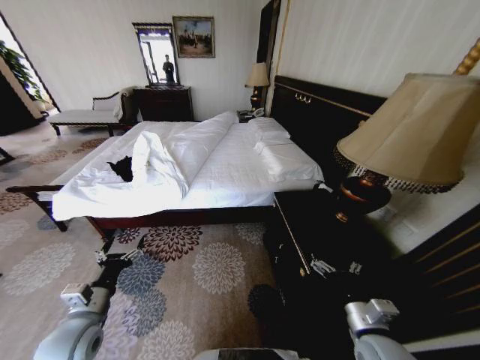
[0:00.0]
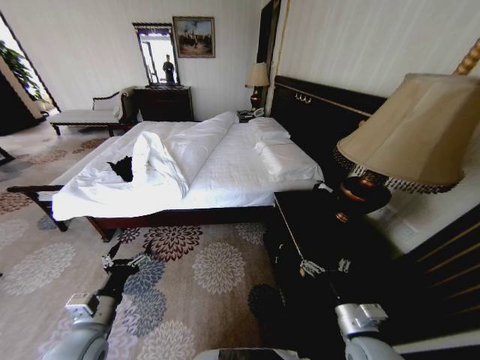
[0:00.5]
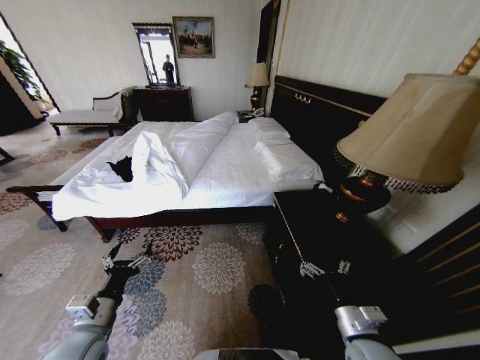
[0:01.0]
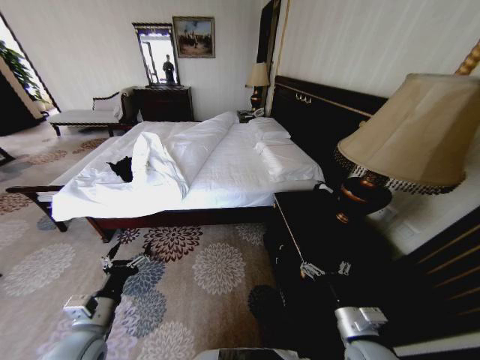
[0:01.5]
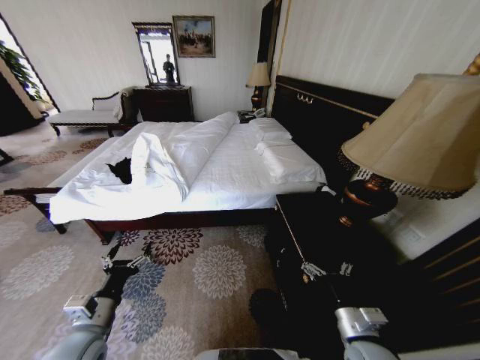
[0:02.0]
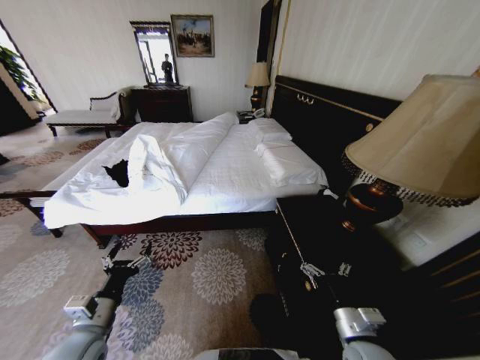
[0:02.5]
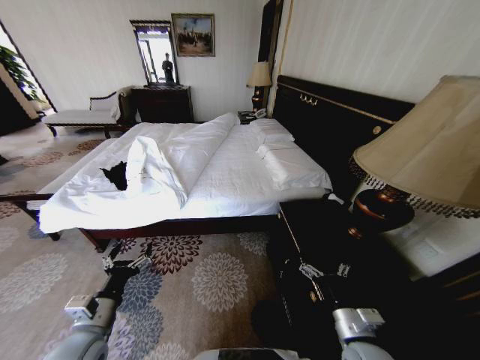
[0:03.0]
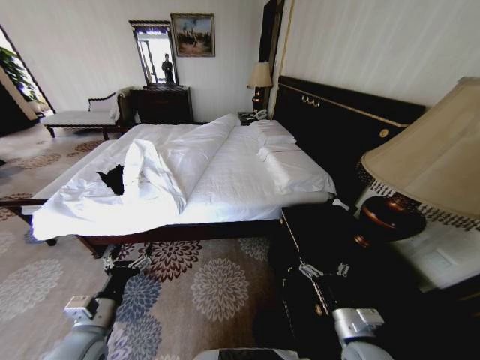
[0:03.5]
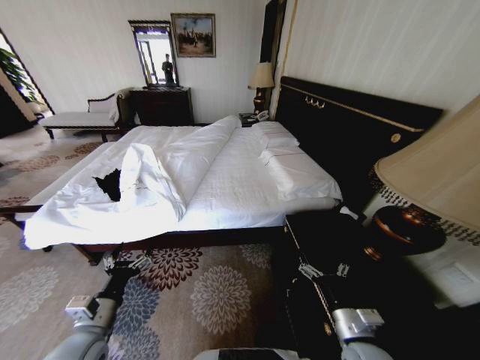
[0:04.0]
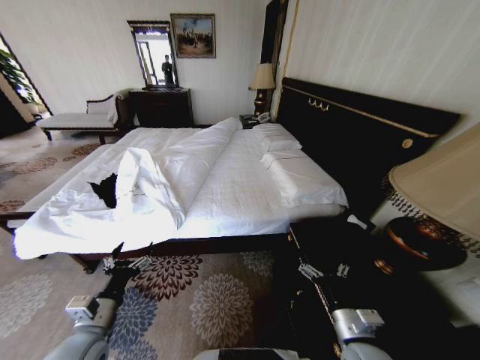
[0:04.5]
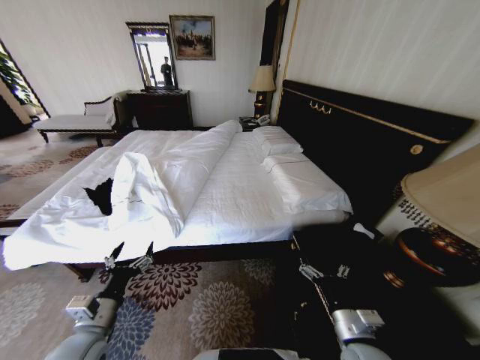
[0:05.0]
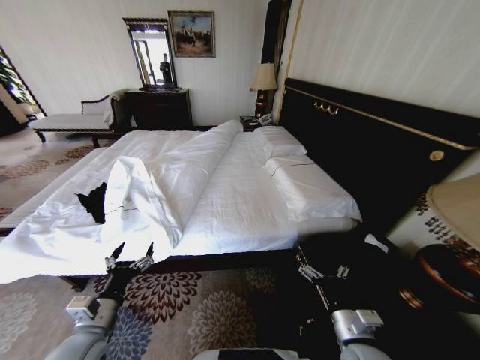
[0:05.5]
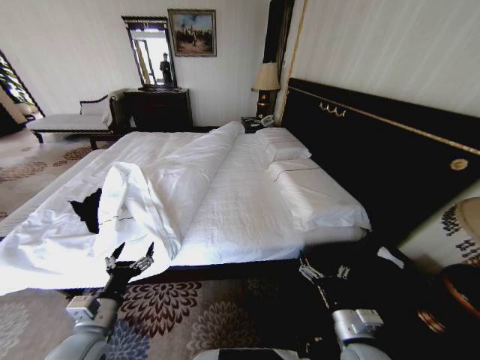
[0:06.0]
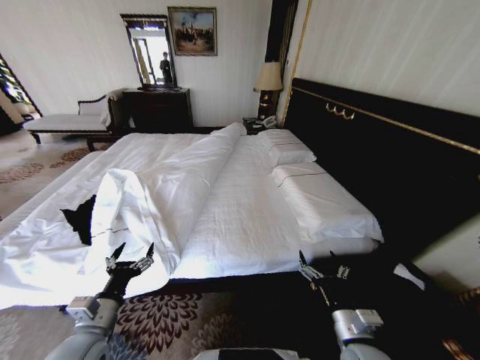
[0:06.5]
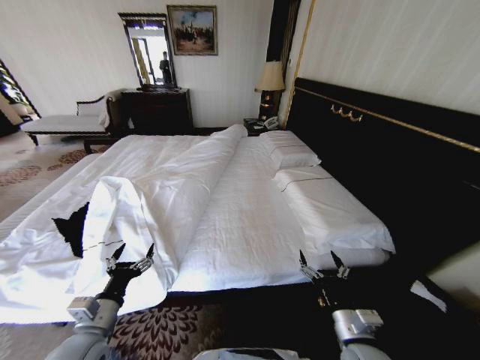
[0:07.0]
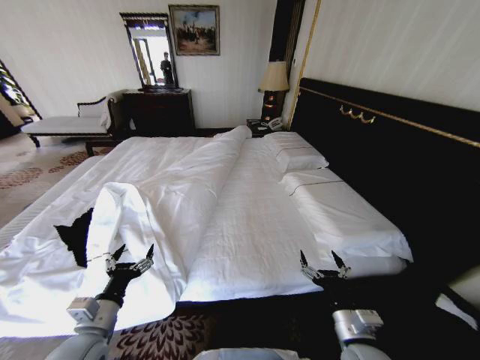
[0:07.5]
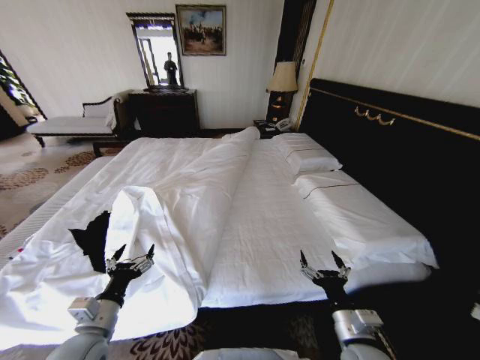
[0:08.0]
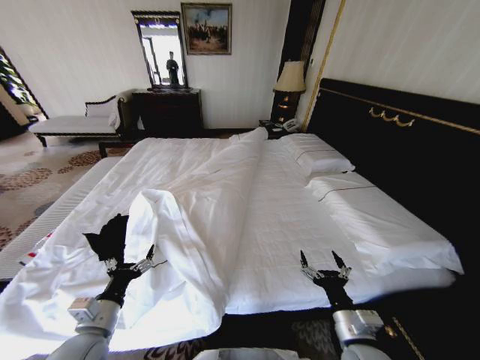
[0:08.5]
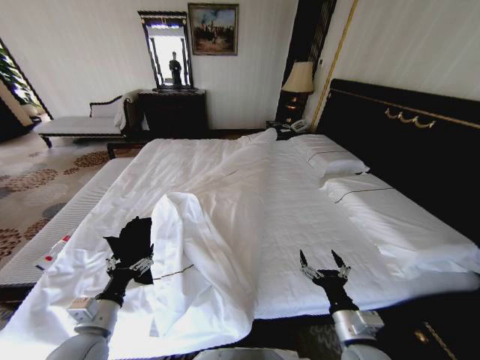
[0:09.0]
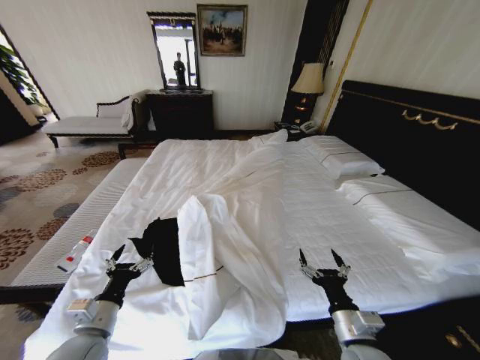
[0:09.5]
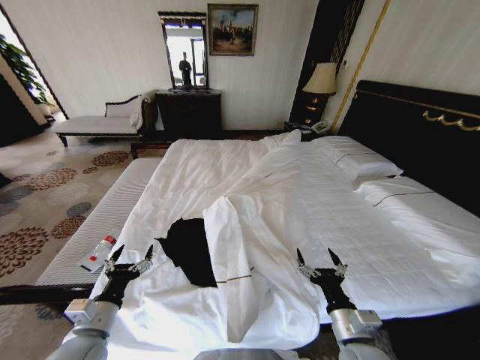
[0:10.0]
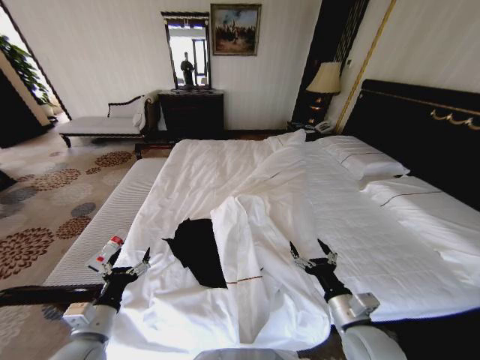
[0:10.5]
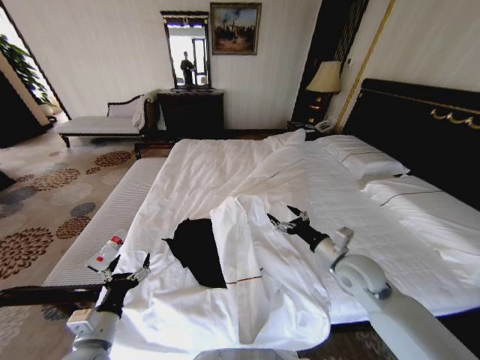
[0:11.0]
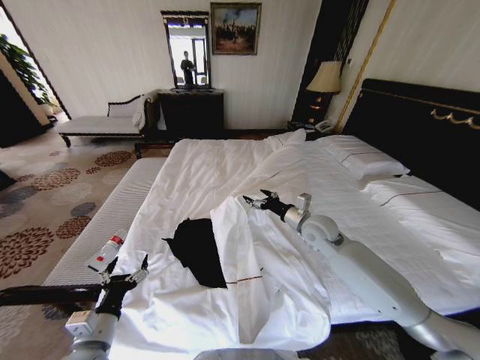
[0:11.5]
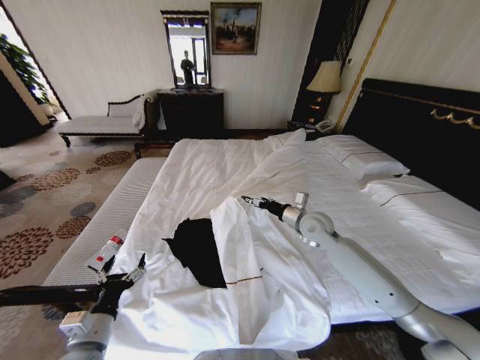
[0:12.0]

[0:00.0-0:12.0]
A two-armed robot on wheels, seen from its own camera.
Task of the whole recording: Fold the clothes on the bed.
0:10.0 to 0:12.0: The right gripper goes approximately 30 cm forward.

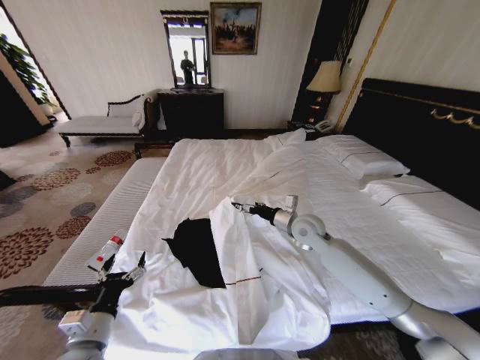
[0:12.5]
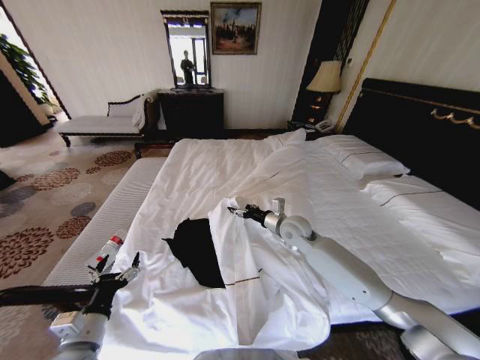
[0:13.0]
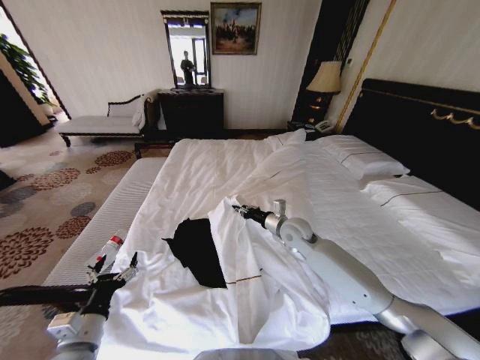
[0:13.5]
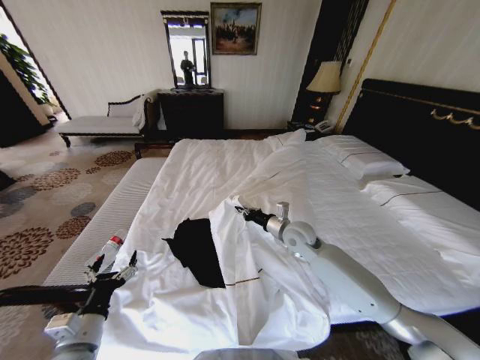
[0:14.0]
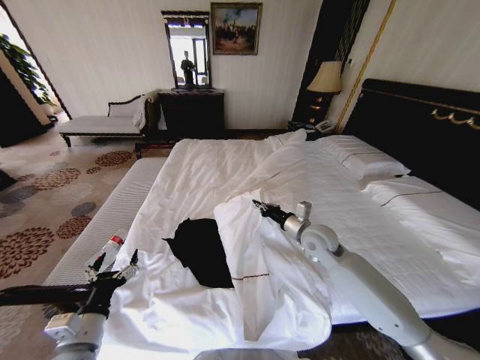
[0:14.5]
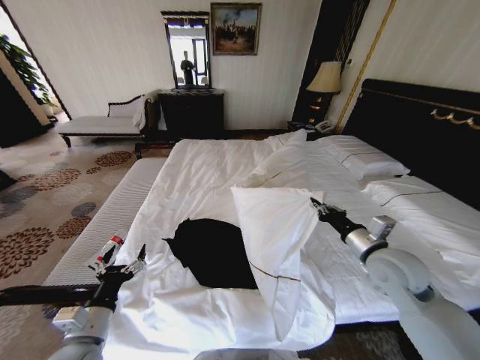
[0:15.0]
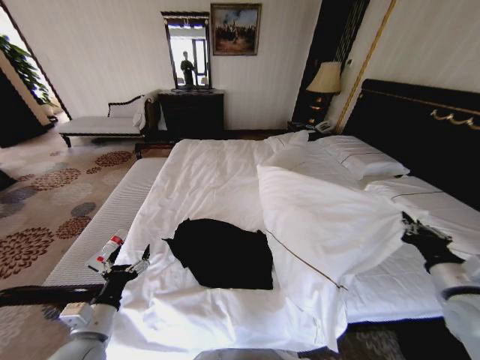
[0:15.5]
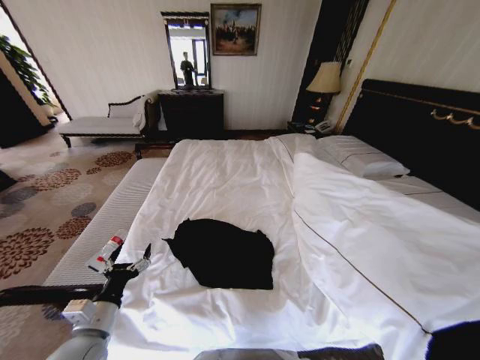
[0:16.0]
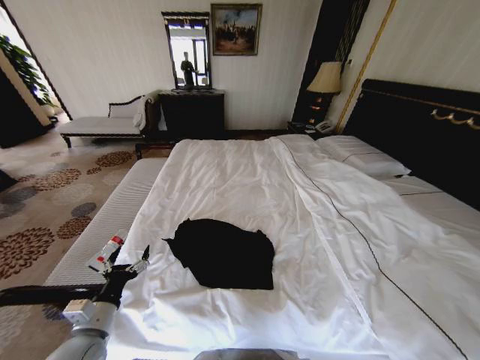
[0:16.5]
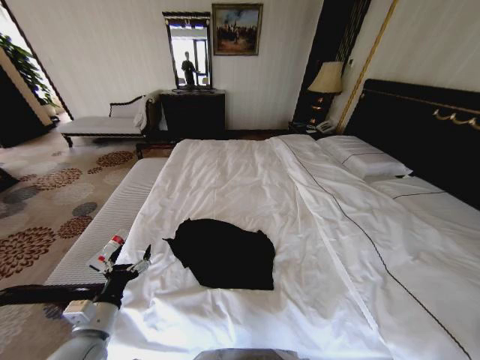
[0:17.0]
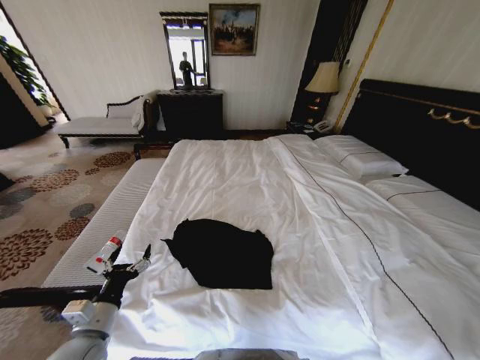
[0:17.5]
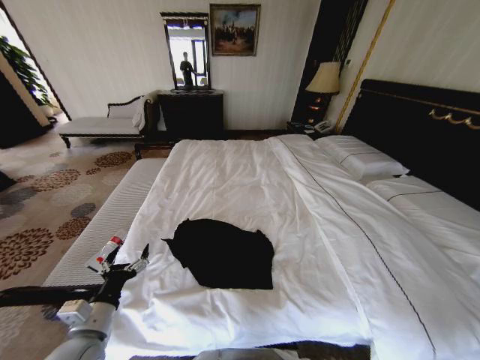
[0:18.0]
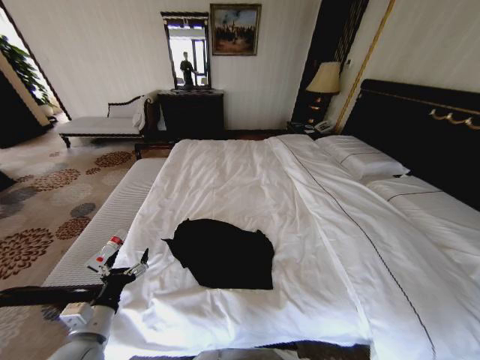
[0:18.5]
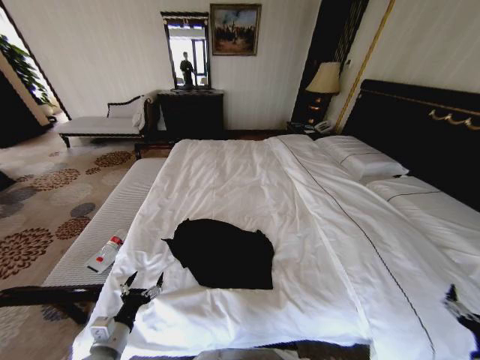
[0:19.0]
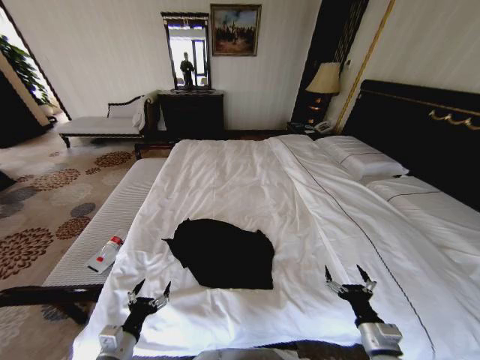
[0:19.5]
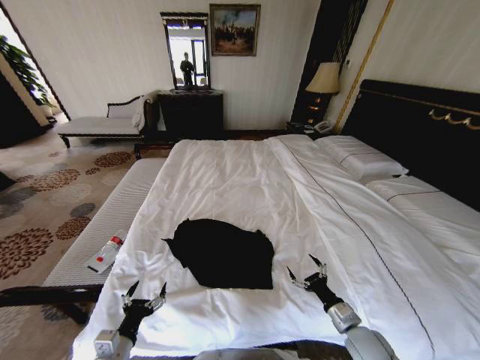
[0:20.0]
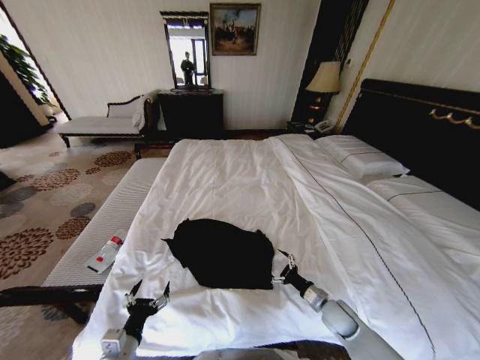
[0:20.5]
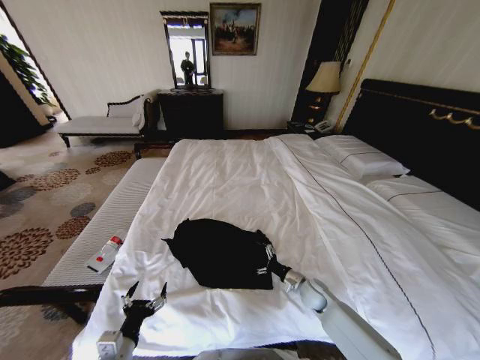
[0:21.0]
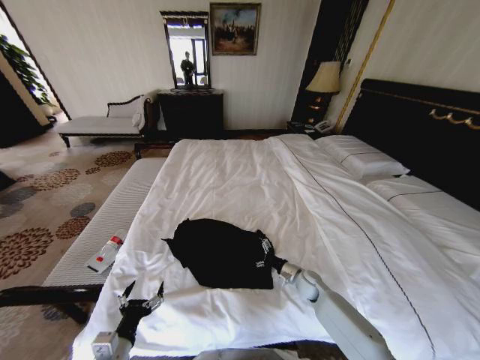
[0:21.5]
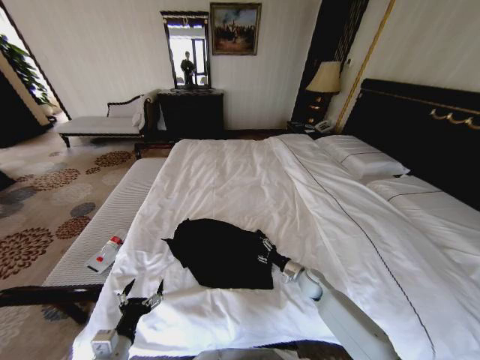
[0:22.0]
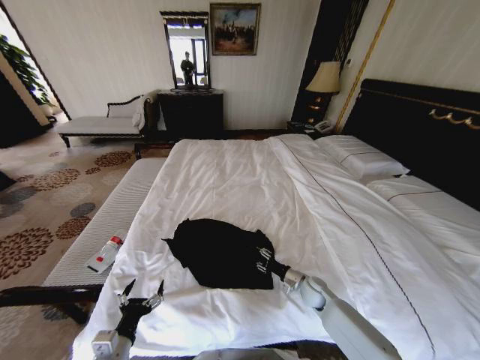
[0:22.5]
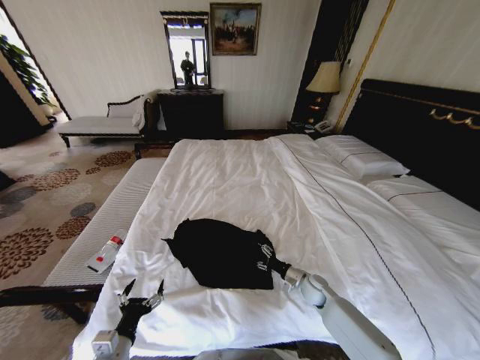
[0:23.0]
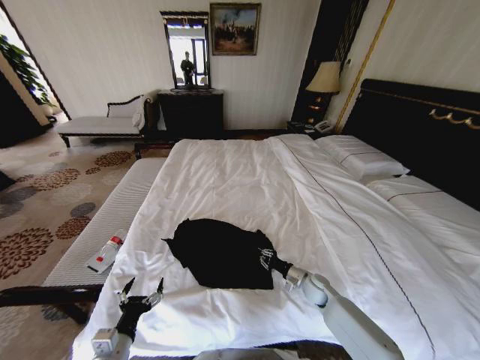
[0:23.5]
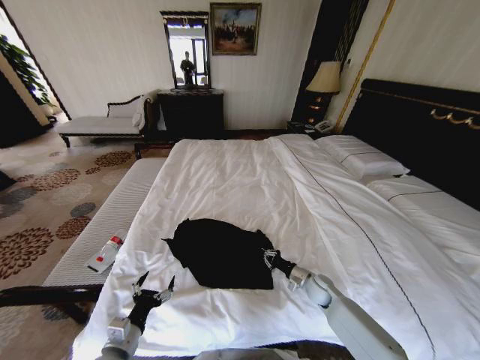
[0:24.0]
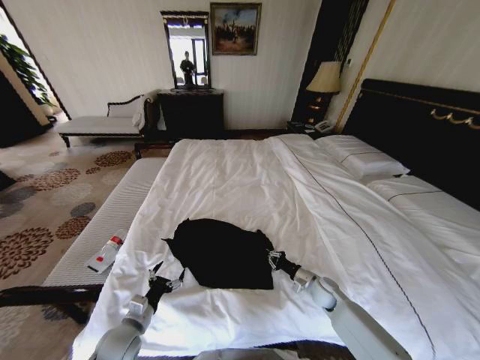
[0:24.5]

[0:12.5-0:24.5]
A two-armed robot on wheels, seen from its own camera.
Task of the whole recording: Fold the clothes on the bed.
0:12.5 to 0:14.5: The right gripper closes.
0:14.5 to 0:16.5: The right gripper heads to the right and backward, covering roughly 50 cm.
0:16.5 to 0:18.5: The right gripper is displaced downward by some 10 cm, and opens.
0:18.5 to 0:20.5: The left gripper goes some 5 cm downward; the right gripper goes some 40 cm to the left and forward.
0:20.5 to 0:22.5: The right gripper travels forward by some 10 cm, and closes its fingers.
0:22.5 to 0:24.5: The left gripper heads forward, covering about 10 cm, while the right gripper closes.

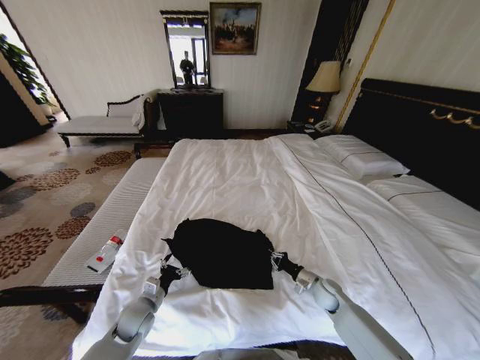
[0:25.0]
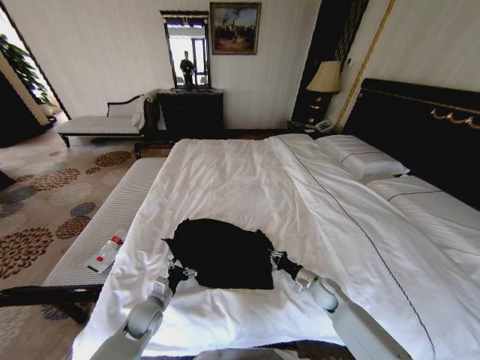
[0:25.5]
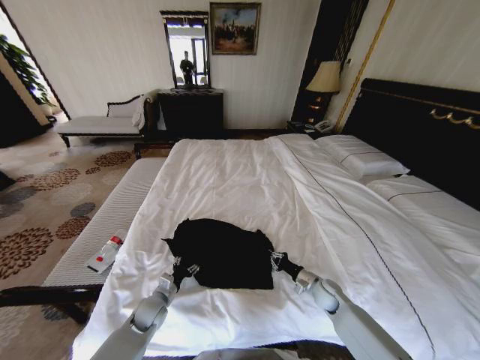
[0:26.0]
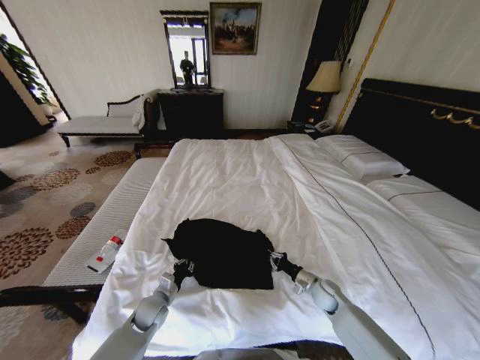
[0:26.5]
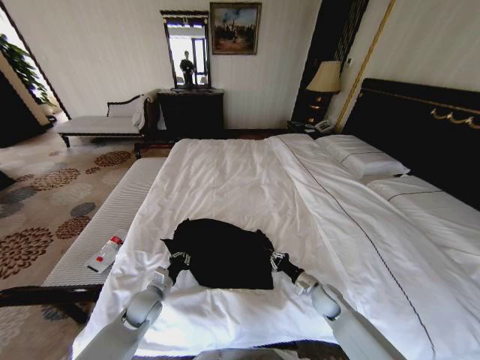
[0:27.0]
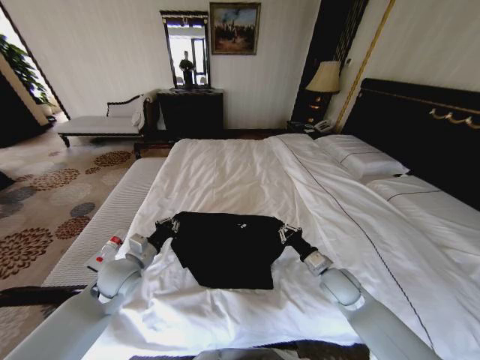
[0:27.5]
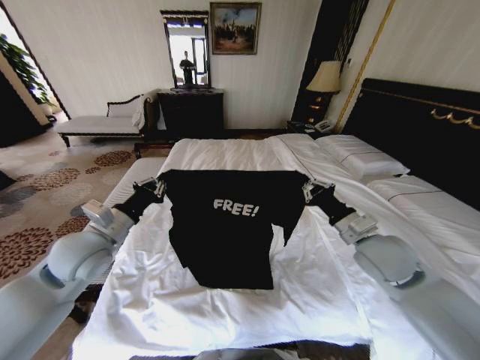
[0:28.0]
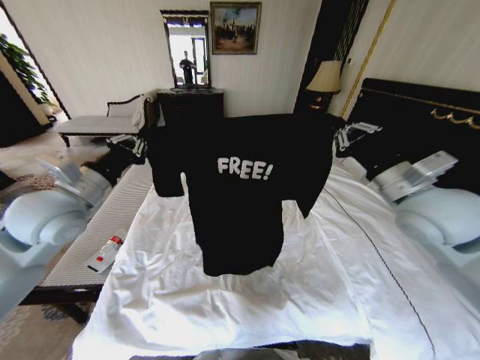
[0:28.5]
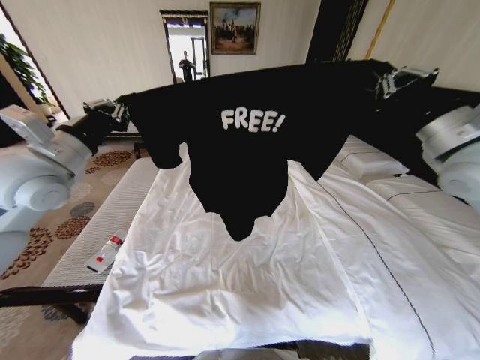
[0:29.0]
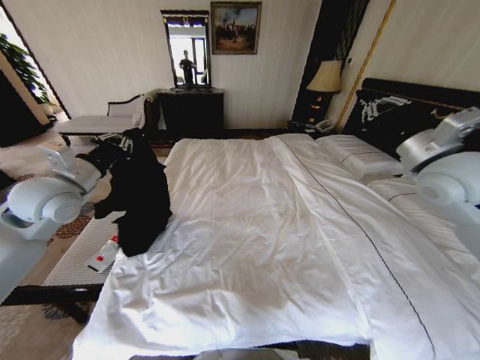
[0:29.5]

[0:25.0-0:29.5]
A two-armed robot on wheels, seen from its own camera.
Task of the whole recording: Fold the clothes on the bed.
0:25.0 to 0:27.0: The left gripper closes.
0:27.0 to 0:29.5: Both grippers move upward, some 40 cm.
